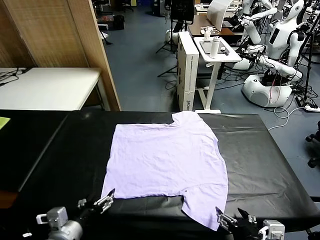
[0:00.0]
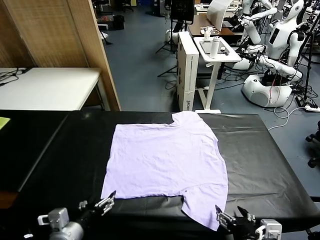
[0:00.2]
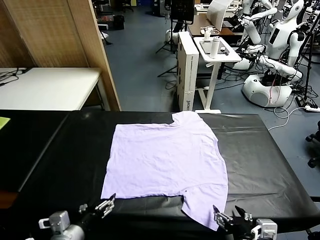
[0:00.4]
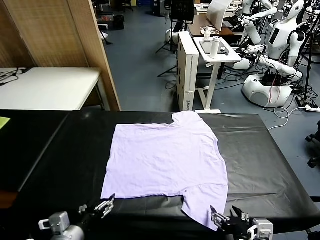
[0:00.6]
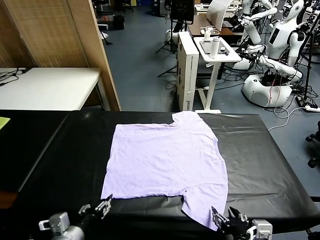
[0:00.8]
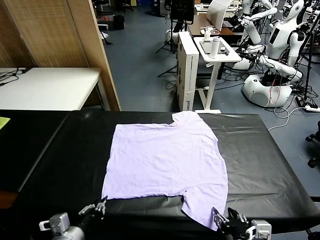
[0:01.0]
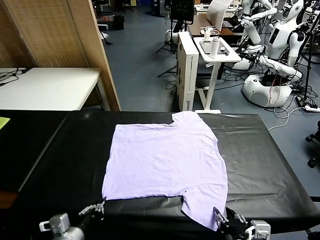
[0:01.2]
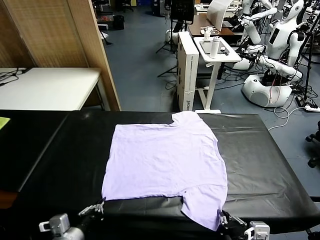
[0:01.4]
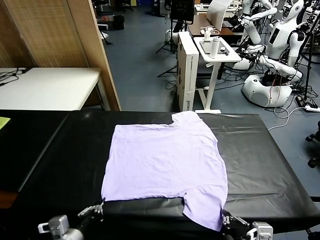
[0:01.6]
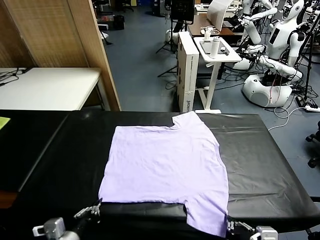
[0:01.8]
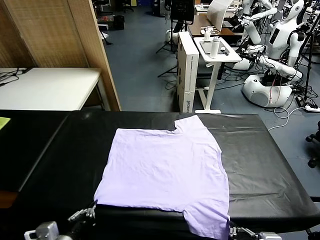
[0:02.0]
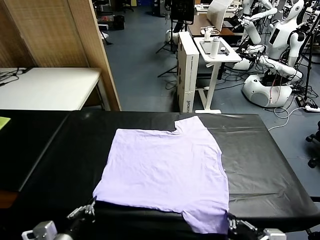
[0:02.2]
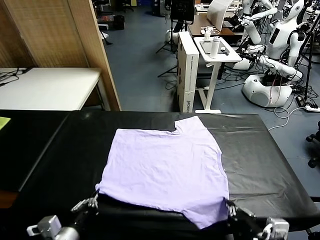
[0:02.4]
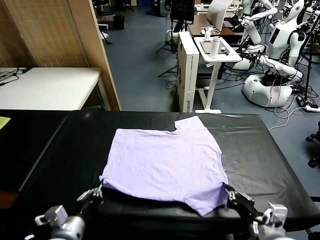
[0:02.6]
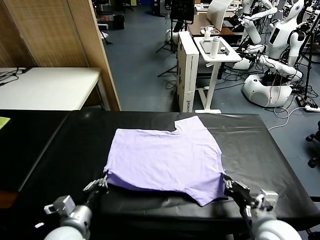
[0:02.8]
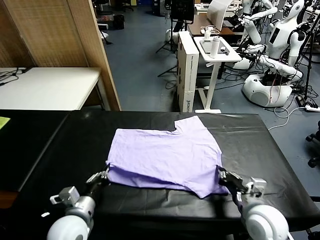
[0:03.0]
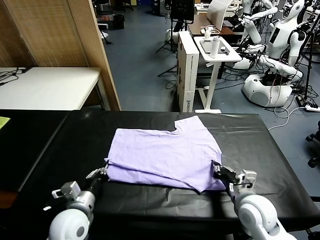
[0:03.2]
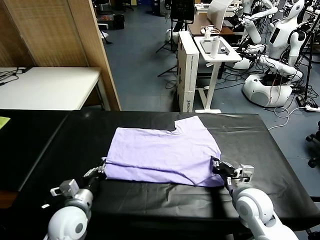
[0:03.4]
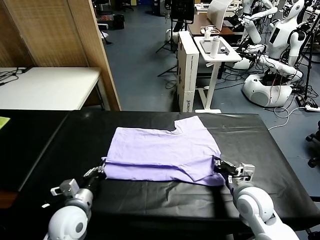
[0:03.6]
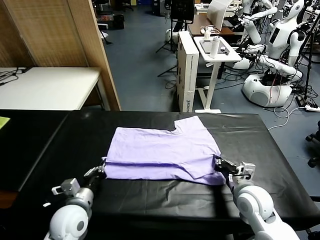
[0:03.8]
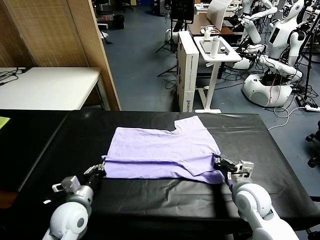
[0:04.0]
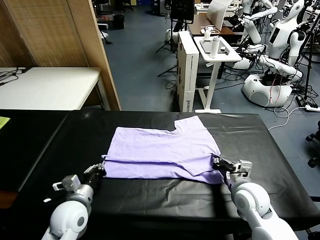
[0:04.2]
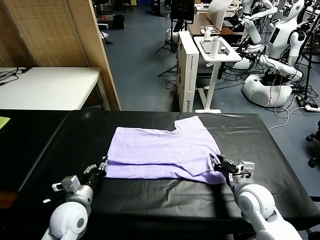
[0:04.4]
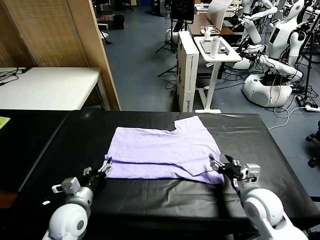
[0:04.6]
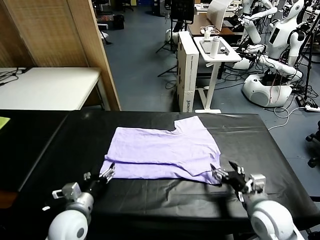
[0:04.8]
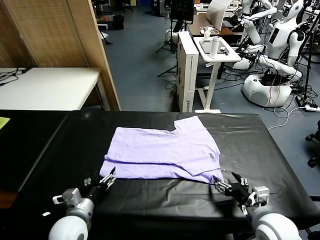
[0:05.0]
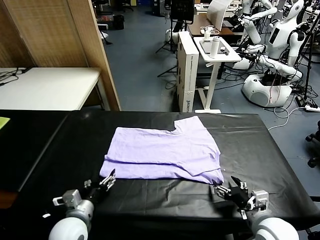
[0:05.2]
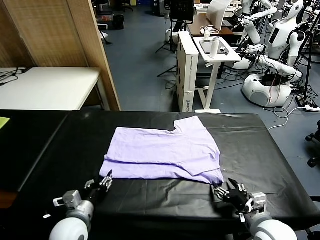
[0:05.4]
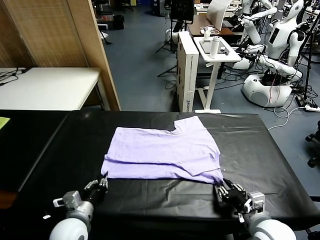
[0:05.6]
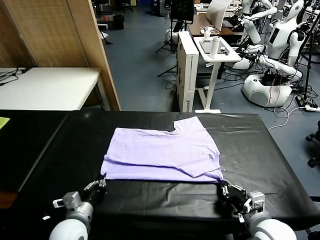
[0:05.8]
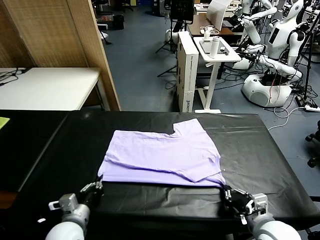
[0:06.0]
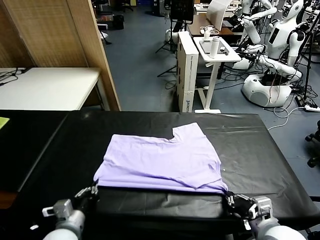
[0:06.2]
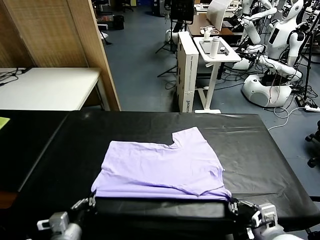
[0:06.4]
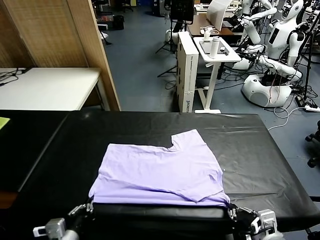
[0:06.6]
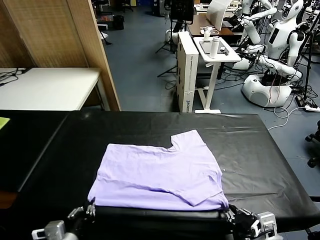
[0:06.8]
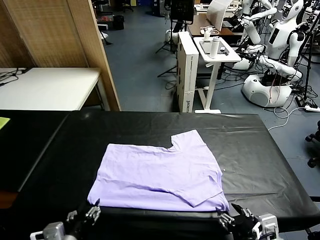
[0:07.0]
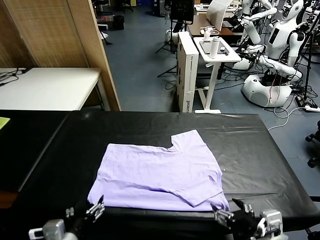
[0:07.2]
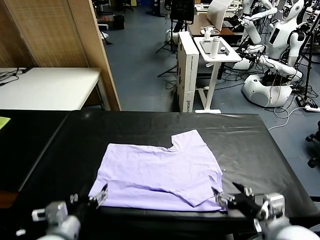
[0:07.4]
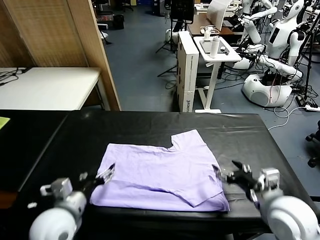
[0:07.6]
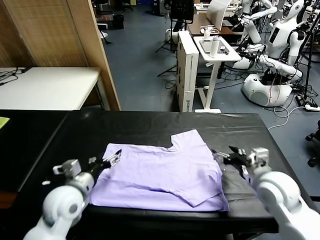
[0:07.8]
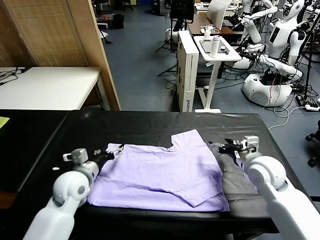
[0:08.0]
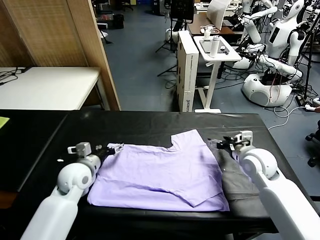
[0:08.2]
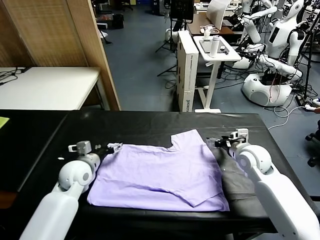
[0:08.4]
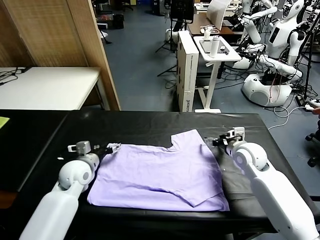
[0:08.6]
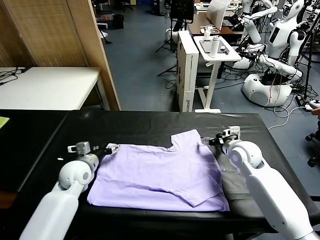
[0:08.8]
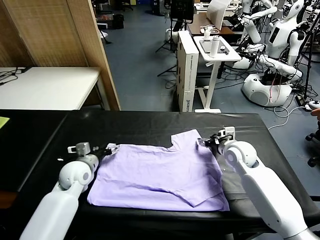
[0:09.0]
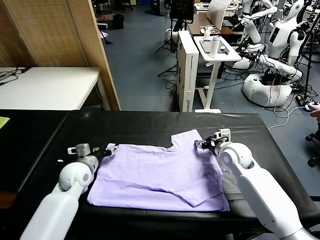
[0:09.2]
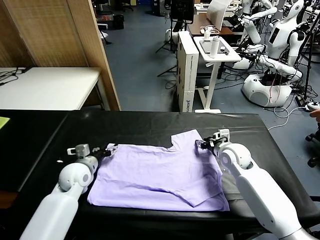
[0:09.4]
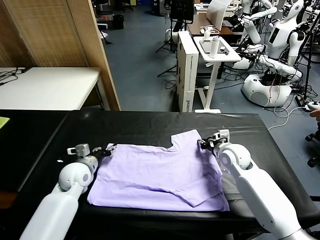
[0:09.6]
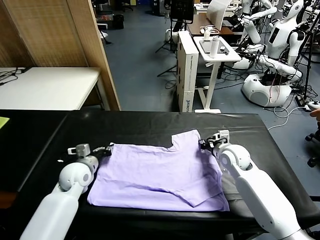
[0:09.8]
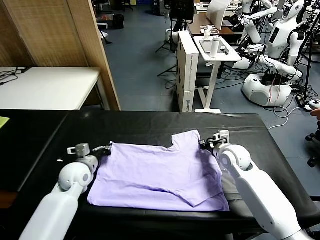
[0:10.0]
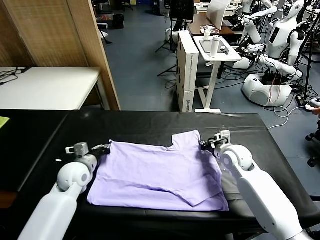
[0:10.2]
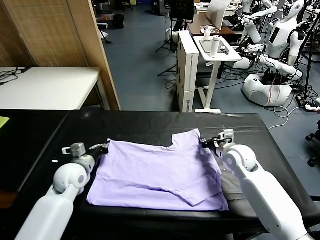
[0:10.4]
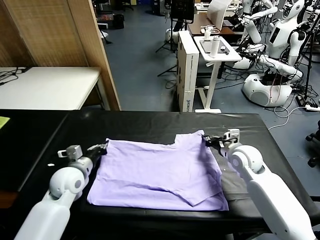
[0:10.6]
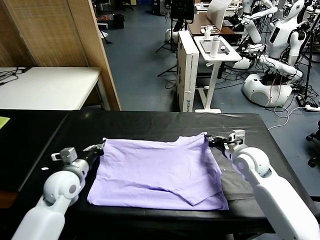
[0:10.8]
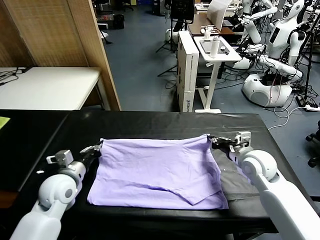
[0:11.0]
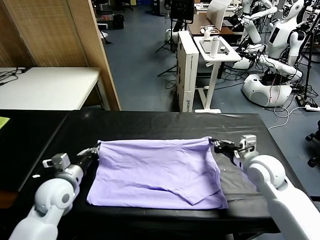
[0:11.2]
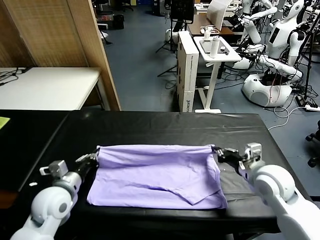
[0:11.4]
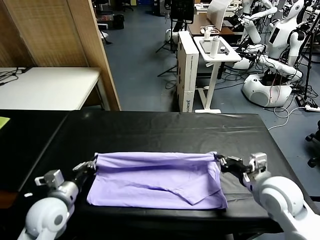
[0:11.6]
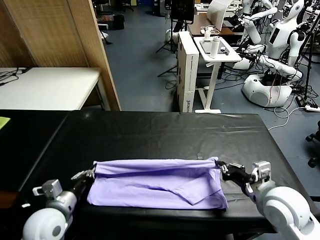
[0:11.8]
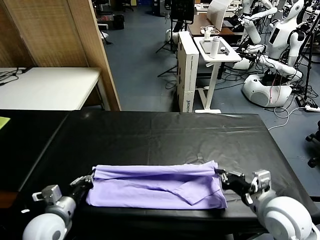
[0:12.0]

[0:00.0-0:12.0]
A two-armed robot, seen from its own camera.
Task of the whole recording: fold and organize the clothes.
Step, 0.0 to 1.6 s: use both grippers simultaneously to clamp the lower edge of the clothing fabric.
Step, 1.8 to 4.4 s: use both grippers to drag the lower edge of the fabric forward and fold it over the upper edge.
Step, 4.8 to 7.0 s: Drag the clothes downward with both gripper.
Step, 7.2 to 10.0 s: use both grippers simultaneously to clamp the upper edge of the clothing fabric.
1.6 to 3.0 s: The left gripper heads forward, covering roughly 10 cm, while the right gripper travels forward by approximately 20 cm.
3.0 to 4.4 s: The left gripper opens up, while the right gripper opens its fingers.
4.4 to 6.0 s: The right gripper goes approximately 10 cm backward, and closes, while the left gripper heads backward, covering roughly 5 cm, and closes up.
6.0 to 7.6 s: The left gripper goes about 10 cm upward, goes backward and returns, roughly 10 cm each way, and opens. The right gripper shifts about 15 cm forward, and opens up.
7.6 to 9.0 s: Both grippers move forward and downward, about 15 cm.
9.0 to 10.4 s: The left gripper closes up. Meanwhile the right gripper closes its fingers.
10.4 to 12.0 s: The grippers both shift backward by some 20 cm.

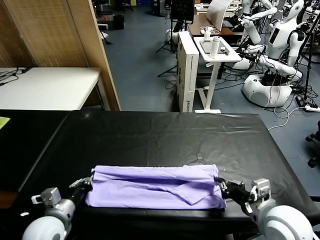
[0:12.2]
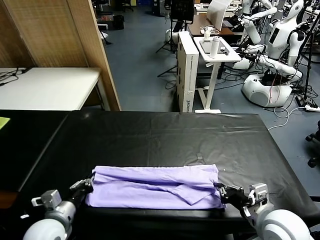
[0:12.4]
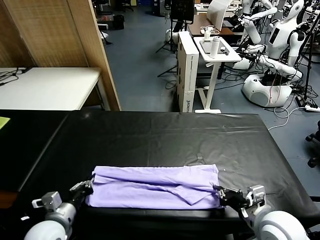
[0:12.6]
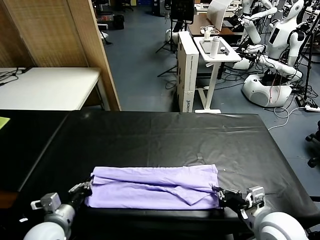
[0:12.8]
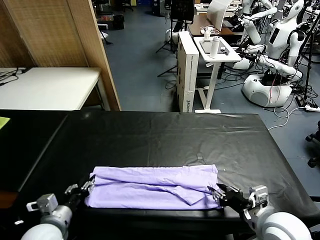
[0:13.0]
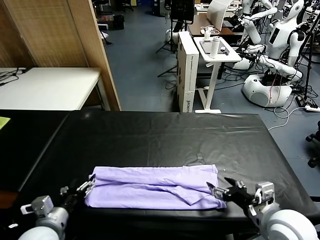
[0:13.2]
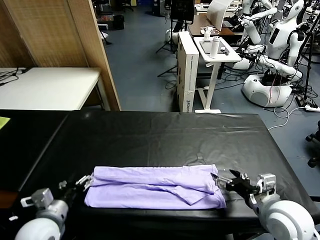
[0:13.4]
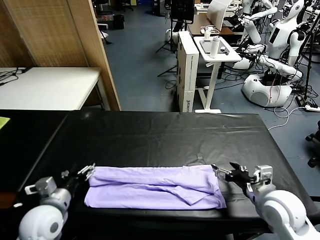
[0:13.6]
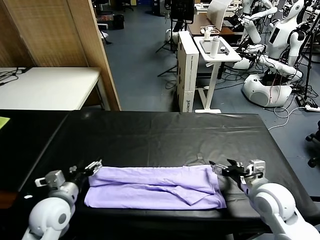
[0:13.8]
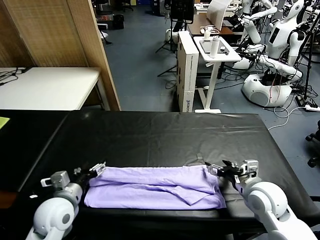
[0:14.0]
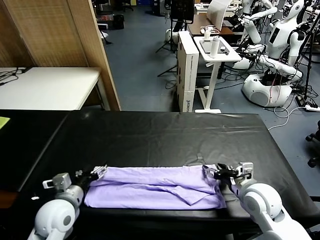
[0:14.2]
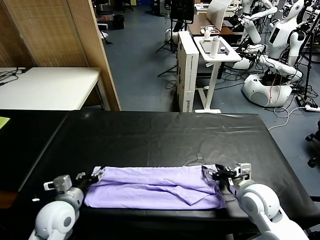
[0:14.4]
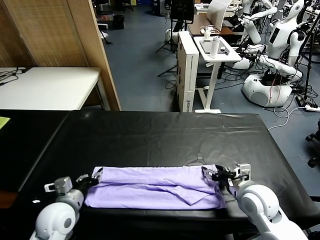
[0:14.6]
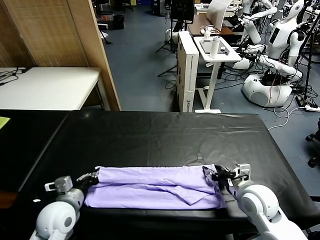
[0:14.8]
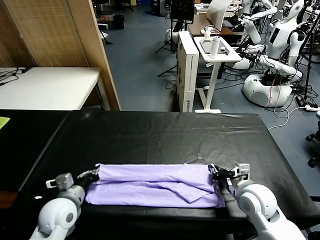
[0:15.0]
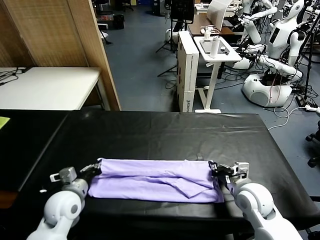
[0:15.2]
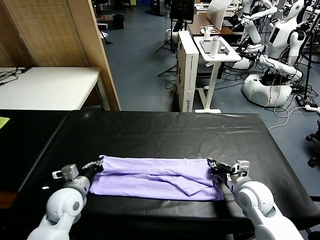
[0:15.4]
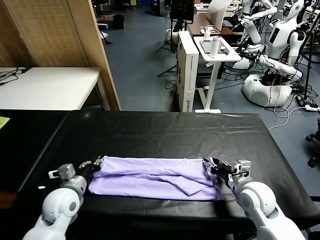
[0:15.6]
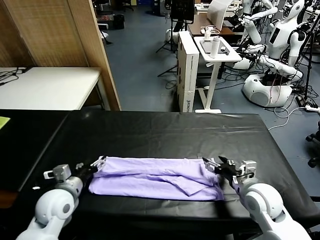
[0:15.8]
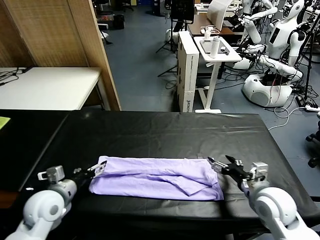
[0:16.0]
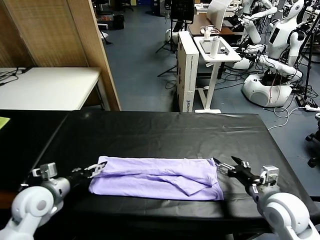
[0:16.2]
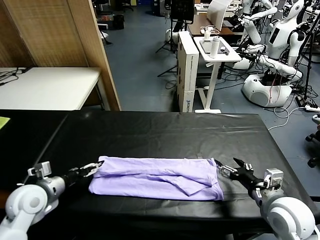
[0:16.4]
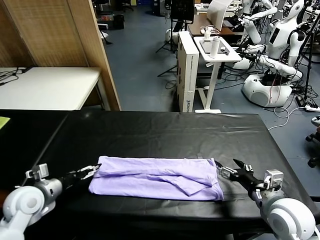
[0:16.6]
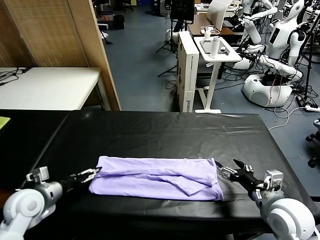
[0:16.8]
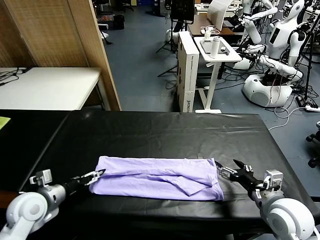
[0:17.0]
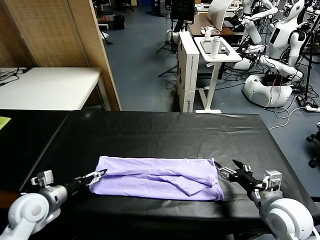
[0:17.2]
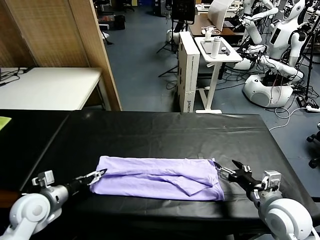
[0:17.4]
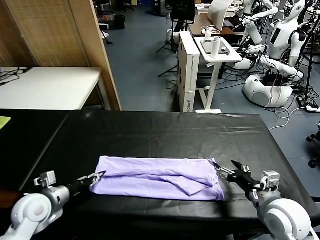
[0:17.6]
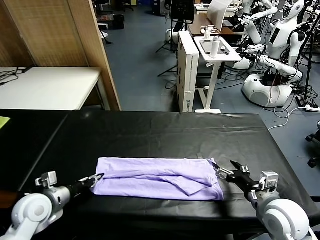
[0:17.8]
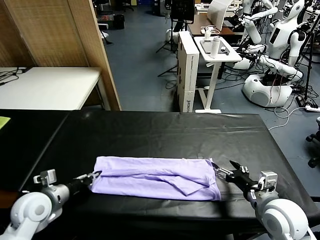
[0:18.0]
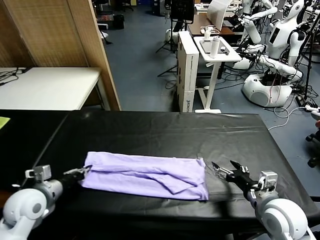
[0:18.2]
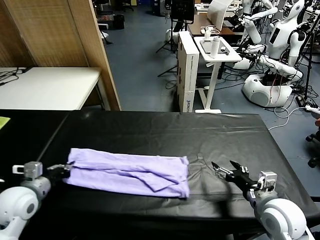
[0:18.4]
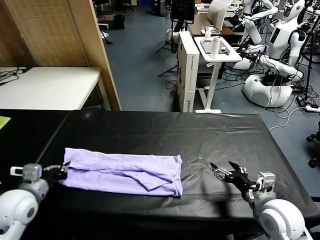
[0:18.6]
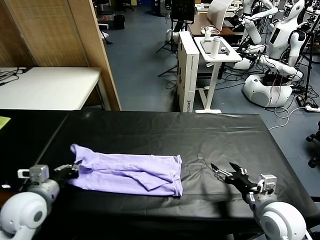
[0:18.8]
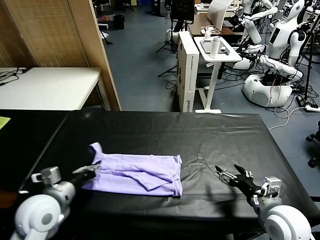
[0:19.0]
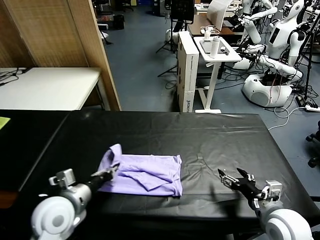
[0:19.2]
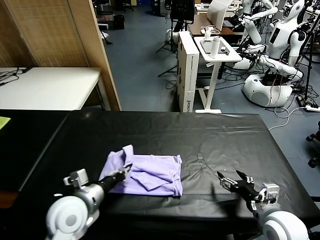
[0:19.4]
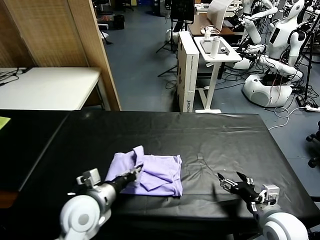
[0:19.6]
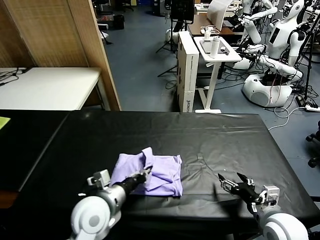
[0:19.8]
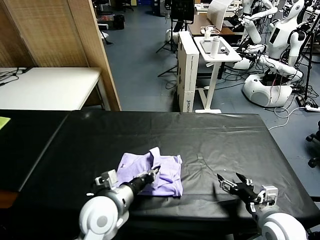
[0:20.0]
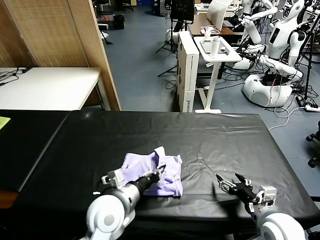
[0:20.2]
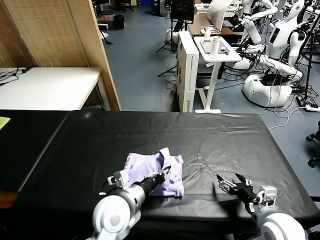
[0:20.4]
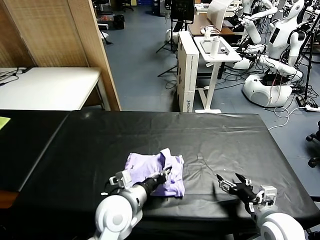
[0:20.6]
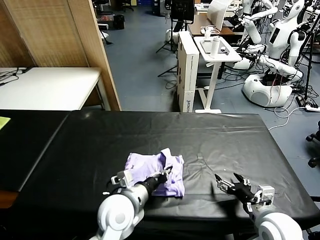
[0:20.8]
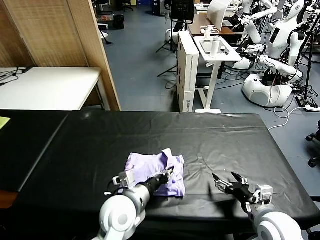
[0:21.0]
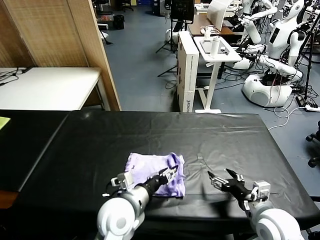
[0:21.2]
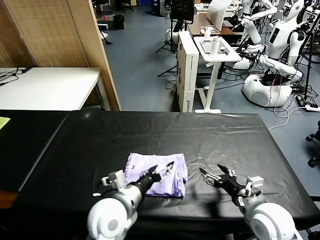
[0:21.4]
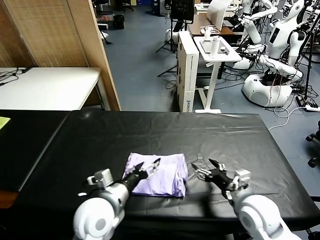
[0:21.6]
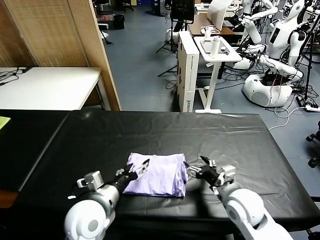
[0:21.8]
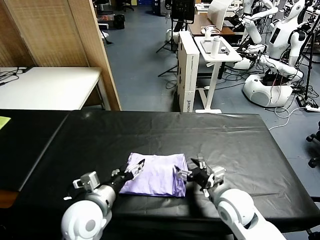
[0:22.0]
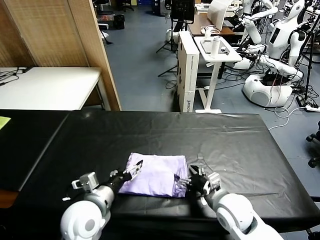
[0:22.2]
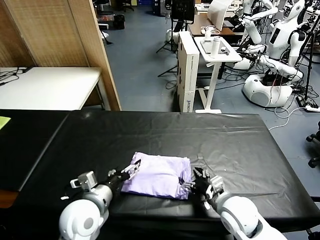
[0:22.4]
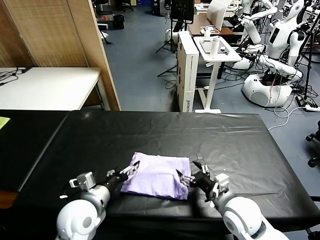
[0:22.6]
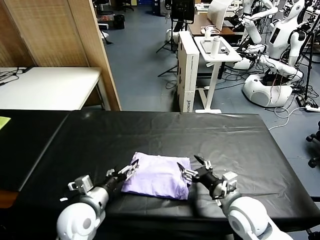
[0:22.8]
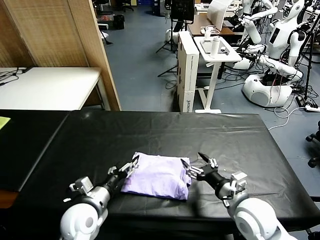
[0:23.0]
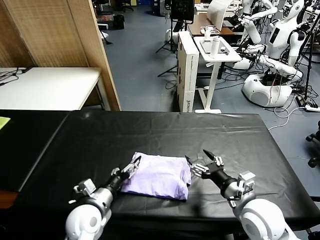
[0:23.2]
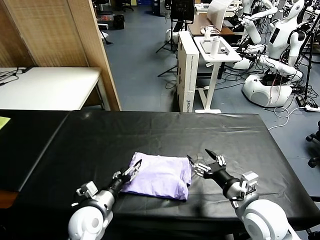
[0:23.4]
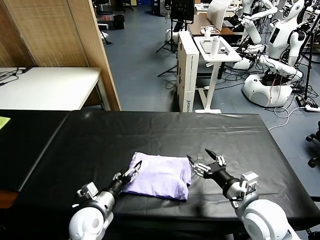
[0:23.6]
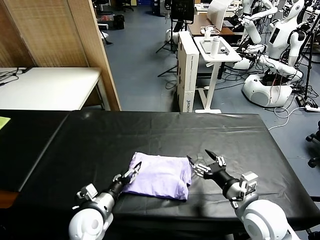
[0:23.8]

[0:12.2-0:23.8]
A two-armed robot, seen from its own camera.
Task of the whole recording: fold and organize the clothes.
Step, 13.2 to 17.8 s: use the left gripper to clamp the left edge of the fabric.
Step, 18.0 to 21.2 s: use the left gripper to drag the left edge of the fabric to the left and folds it over the right edge.
12.2 to 13.6 s: The left gripper opens up. Meanwhile the right gripper is displaced forward by some 5 cm, and opens.
13.6 to 15.0 s: The left gripper closes its fingers. Meanwhile the right gripper ends up approximately 5 cm from where it was, and closes its fingers.
15.0 to 16.6 s: The left gripper moves to the left, approximately 10 cm, and opens up; the right gripper is displaced backward and upward by some 10 cm, and opens.
16.6 to 18.0 s: The left gripper closes.
18.0 to 19.4 s: The left gripper heads to the right, covering roughly 10 cm.
19.4 to 21.0 s: The left gripper heads to the right, covering about 15 cm.
21.0 to 22.4 s: The grippers both shift to the left by some 10 cm. The left gripper opens up.
22.4 to 23.8 s: The right gripper travels upward by approximately 5 cm. The left gripper heads downward, covering some 10 cm.
